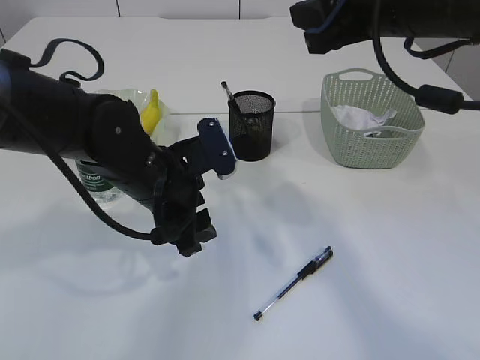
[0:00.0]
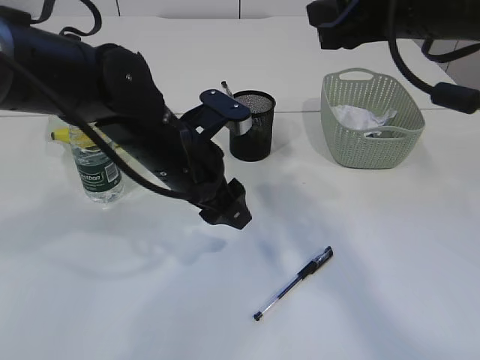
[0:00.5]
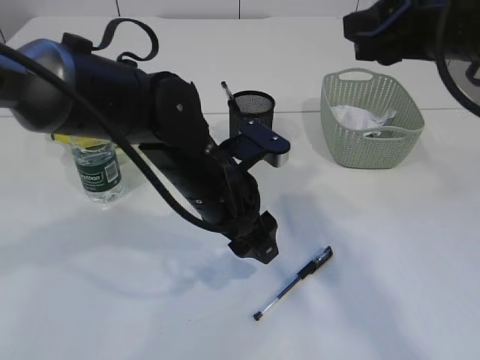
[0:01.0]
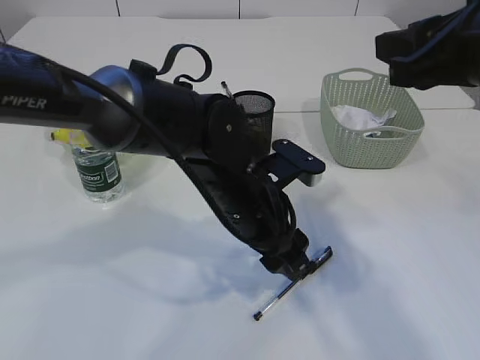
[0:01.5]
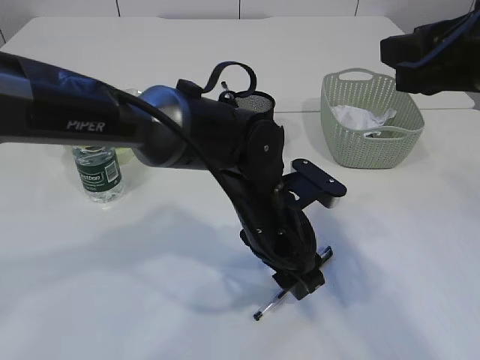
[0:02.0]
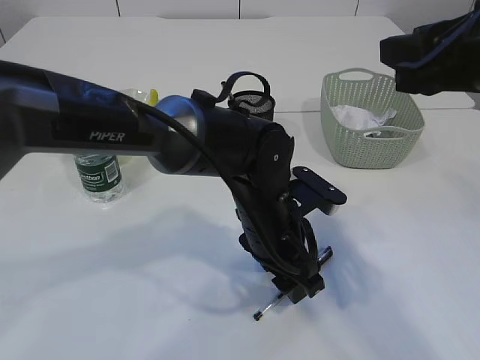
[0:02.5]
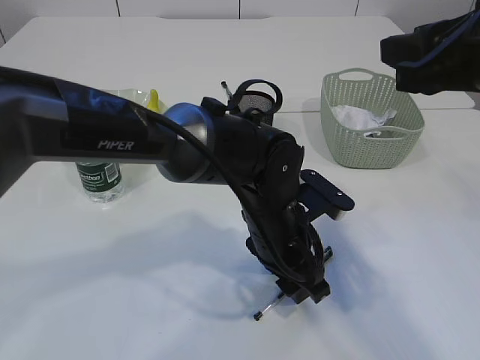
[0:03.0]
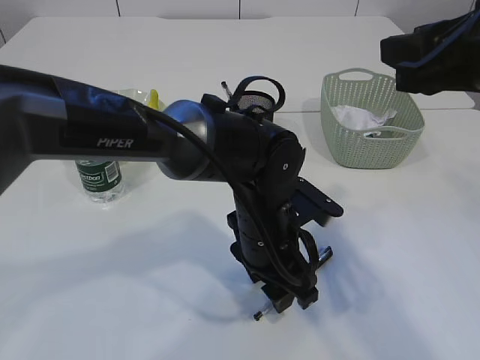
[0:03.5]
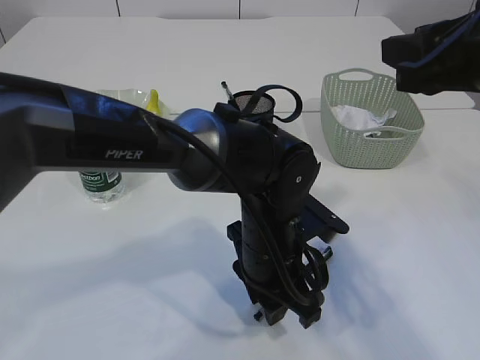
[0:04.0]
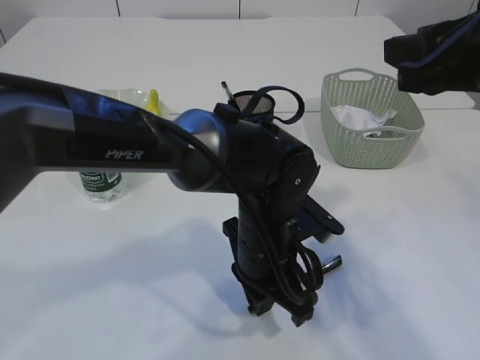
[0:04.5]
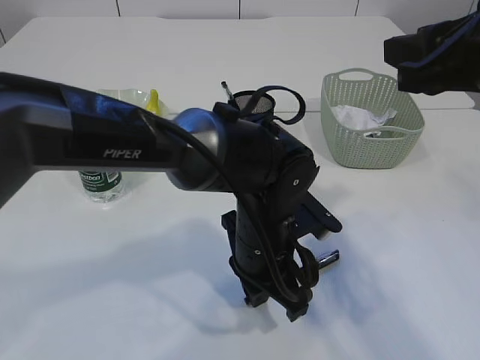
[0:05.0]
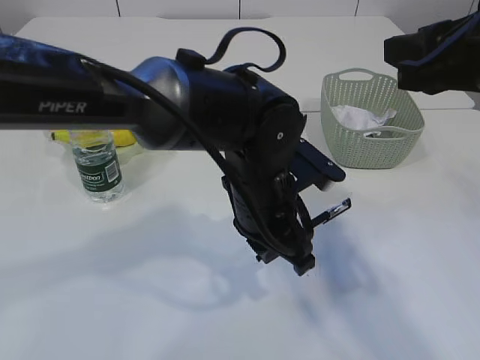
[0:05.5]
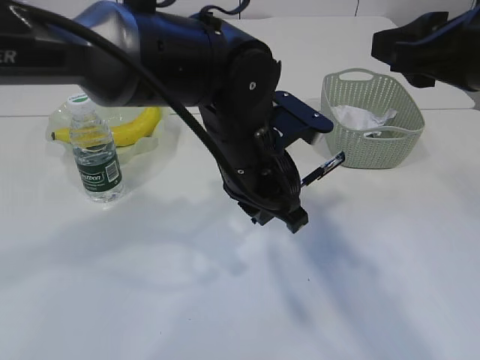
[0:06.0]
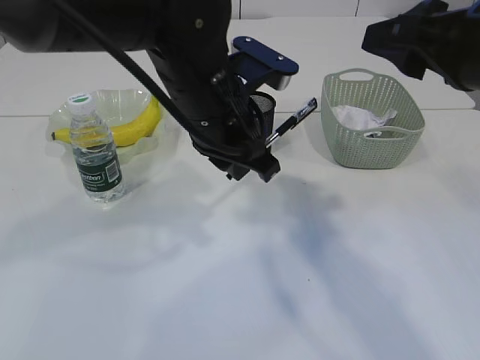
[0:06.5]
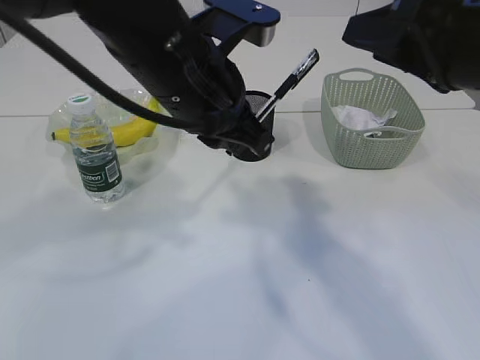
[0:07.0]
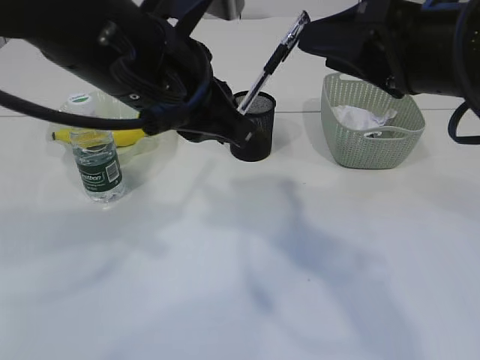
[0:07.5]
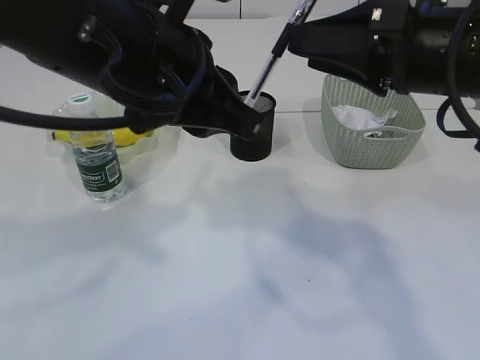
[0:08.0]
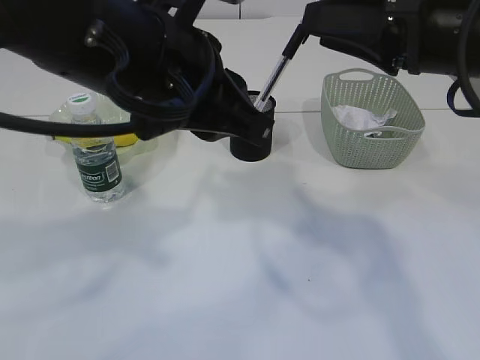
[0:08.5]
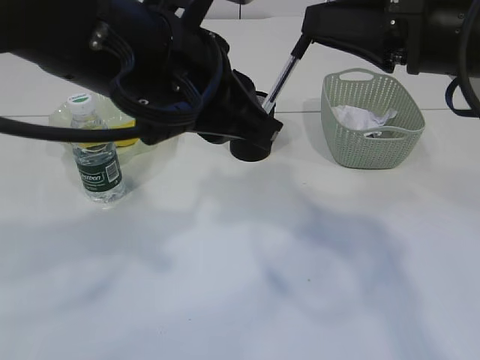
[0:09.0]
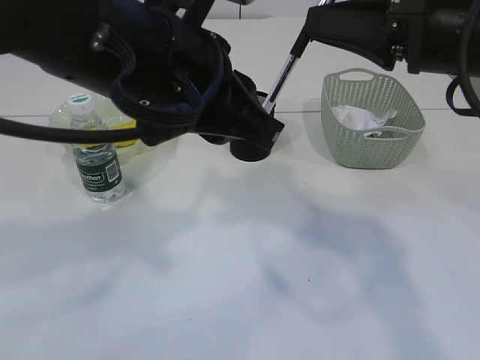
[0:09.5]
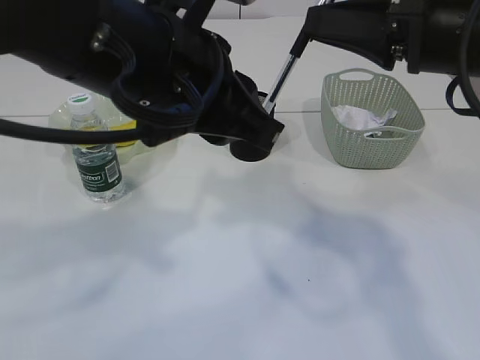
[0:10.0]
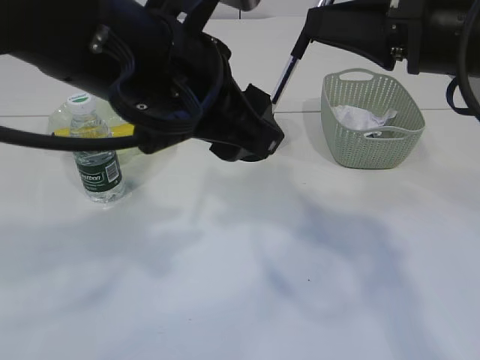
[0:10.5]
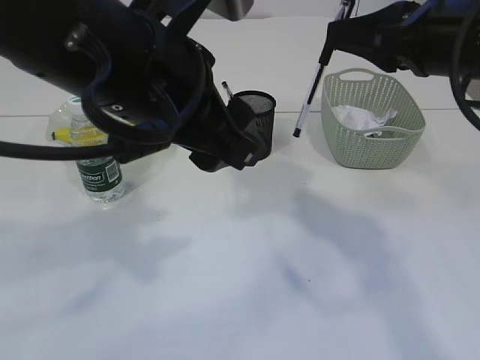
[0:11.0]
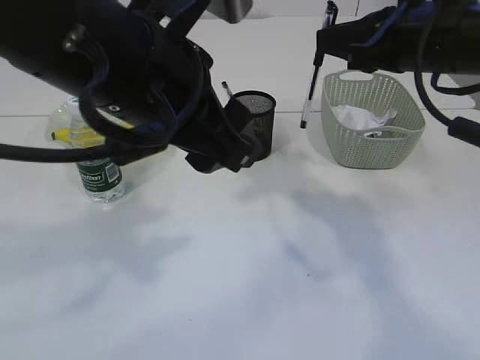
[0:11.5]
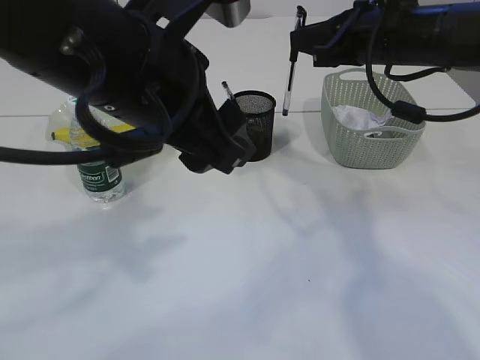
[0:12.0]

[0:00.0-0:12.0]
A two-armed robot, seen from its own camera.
Step, 0:00.0 to 0:05.5: Pick up the pen with left arm.
Step, 0:06.0 to 0:10.5: transfer the pen to the right arm.
0:00.0 to 0:02.0: The left gripper heads to the right, covering roughly 10 cm. The right gripper shifts some 10 cm backward.
0:02.0 to 0:04.0: The left gripper closes.
0:04.0 to 0:06.0: The left gripper travels upward by roughly 10 cm, and closes its fingers.
0:06.0 to 0:08.0: The left gripper moves upward, to the left and backward, approximately 15 cm.
0:08.0 to 0:10.0: The right gripper closes up.
0:10.0 to 0:12.0: The right gripper goes approximately 10 cm forward. Meanwhile the left gripper opens up.

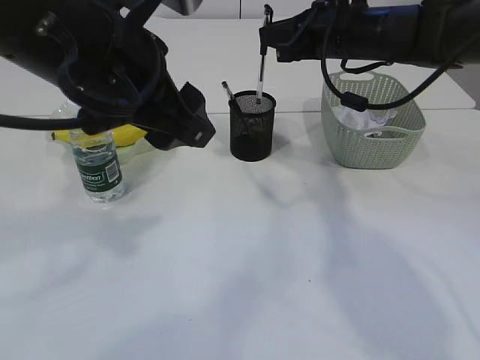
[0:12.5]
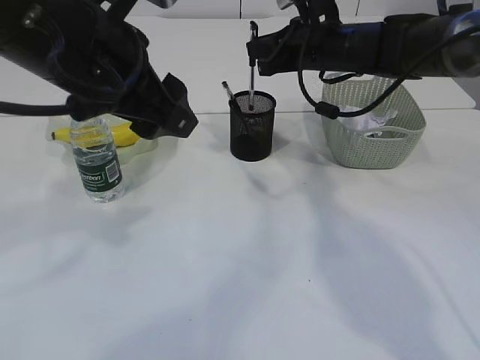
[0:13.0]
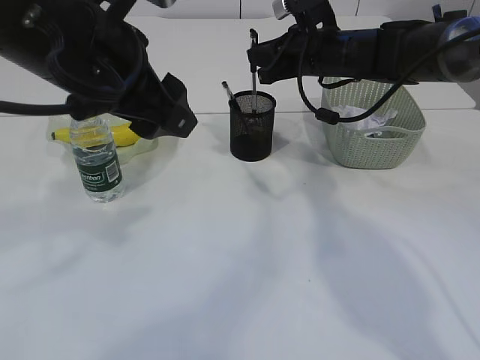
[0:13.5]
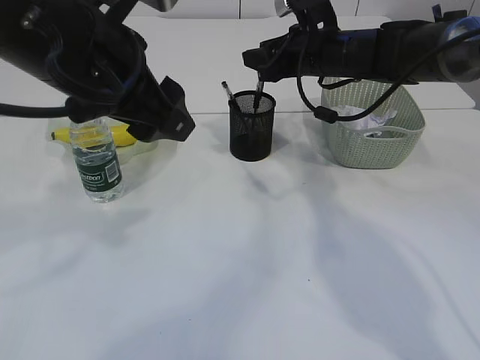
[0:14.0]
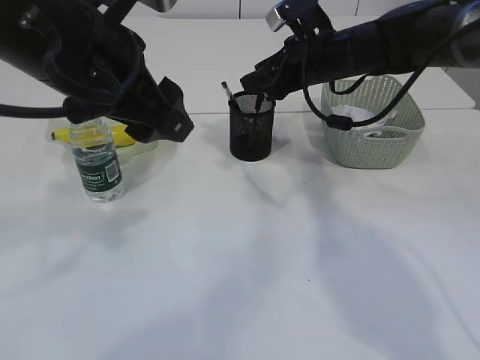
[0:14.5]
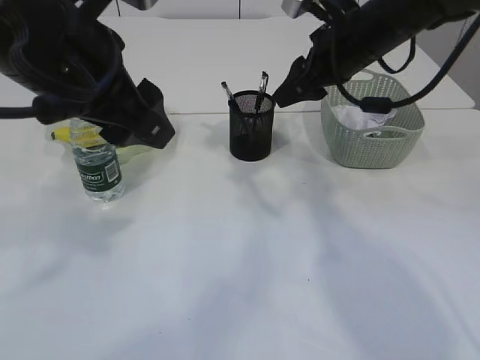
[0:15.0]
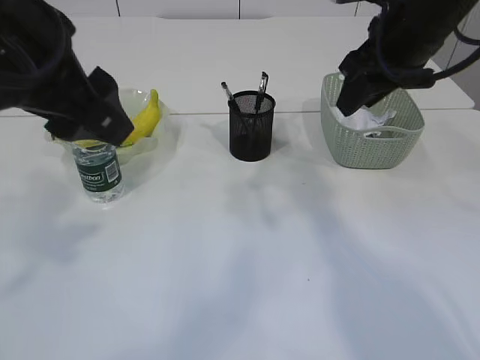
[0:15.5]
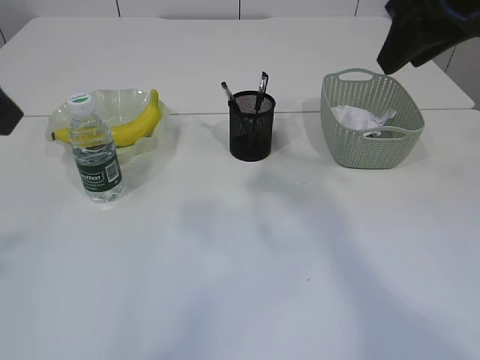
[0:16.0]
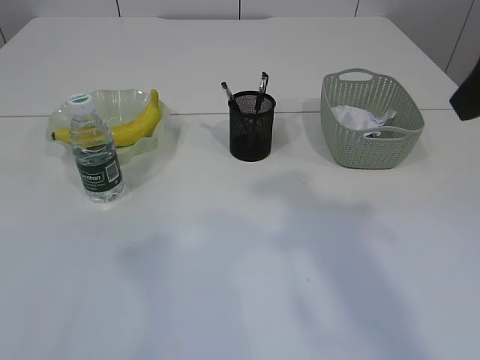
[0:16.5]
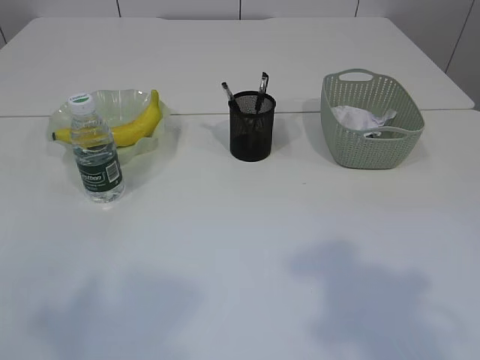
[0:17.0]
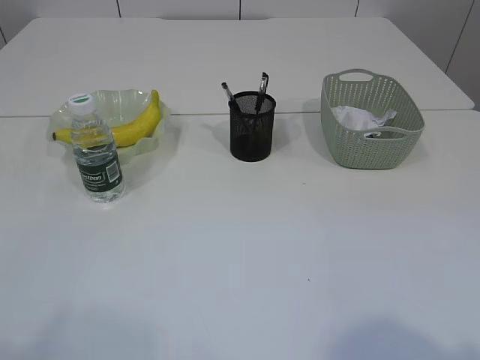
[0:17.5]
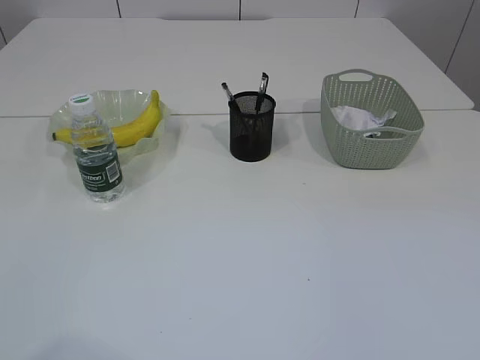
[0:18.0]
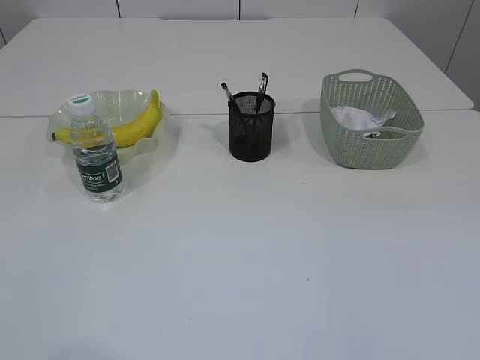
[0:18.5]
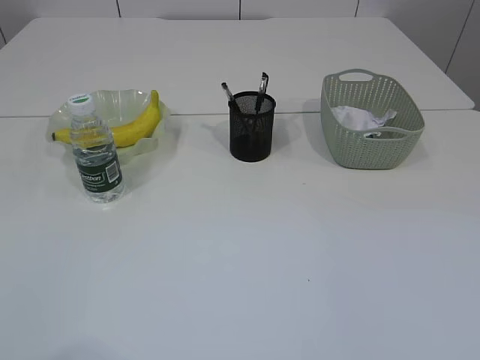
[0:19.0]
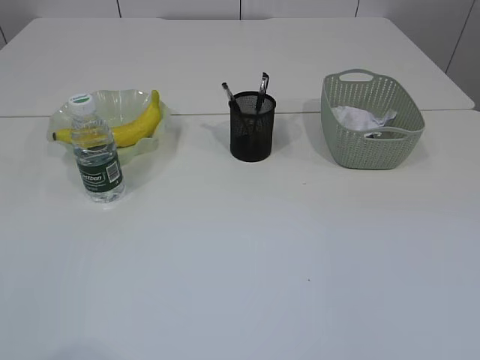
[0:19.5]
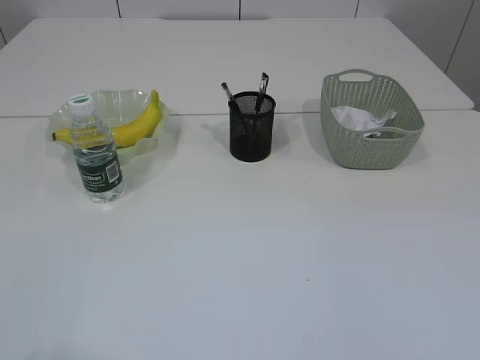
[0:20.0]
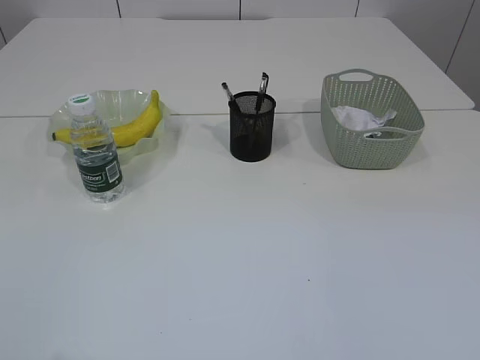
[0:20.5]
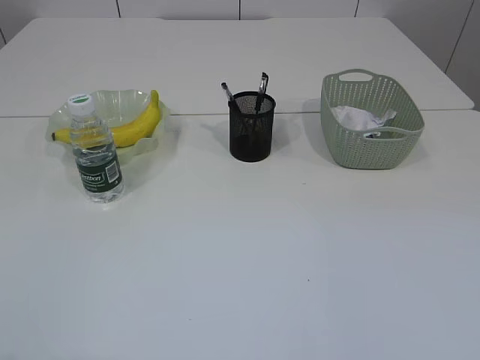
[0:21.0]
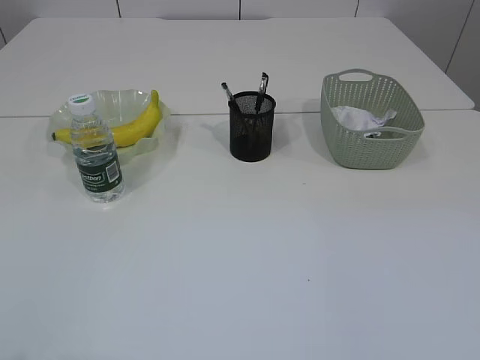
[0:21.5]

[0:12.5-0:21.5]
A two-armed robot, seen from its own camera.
Step, 0:12.5 to 0:15.0: Place the pen into the pen holder.
0:12.5 to 0:14.5: The right gripper opens.
0:14.5 to 0:17.0: The right gripper travels backward and upward by roughly 40 cm. Meanwhile the left gripper is displaced backward and to the left by some 30 cm.
0:17.0 to 0:19.5: The left gripper is displaced downward by about 10 cm.

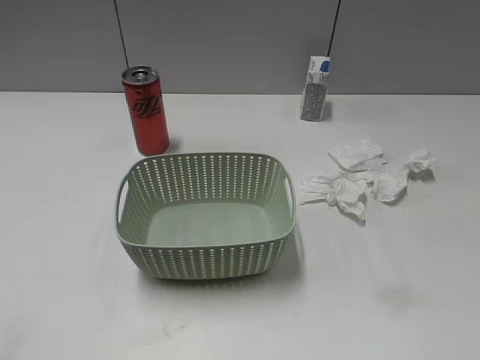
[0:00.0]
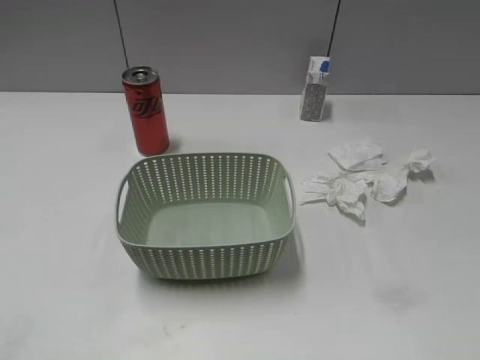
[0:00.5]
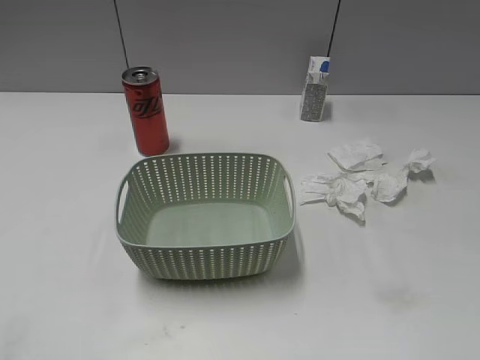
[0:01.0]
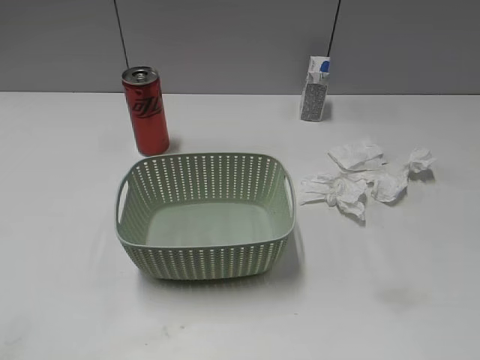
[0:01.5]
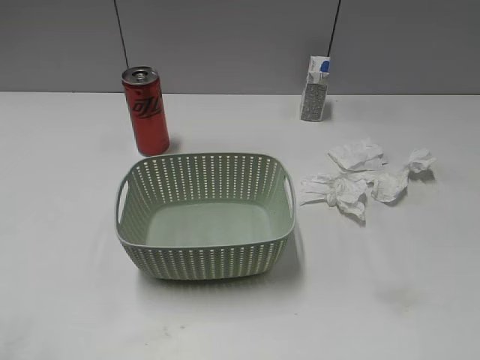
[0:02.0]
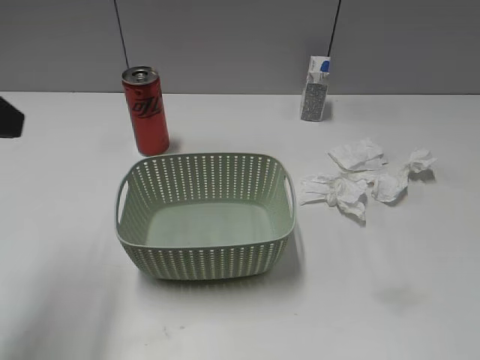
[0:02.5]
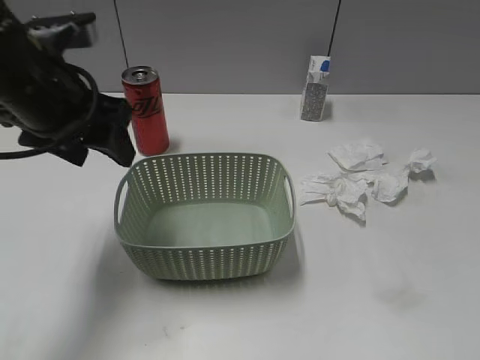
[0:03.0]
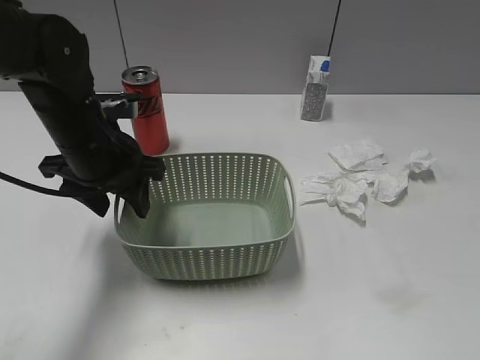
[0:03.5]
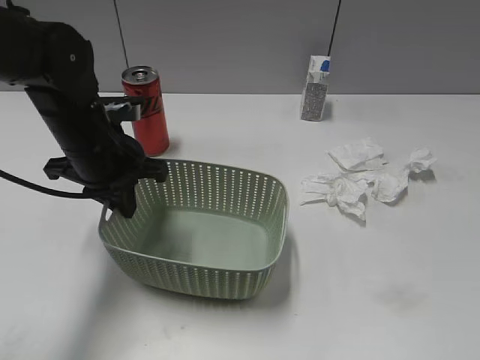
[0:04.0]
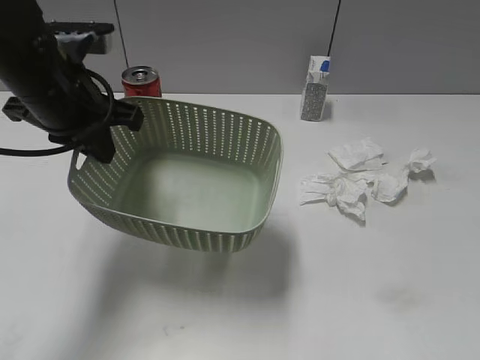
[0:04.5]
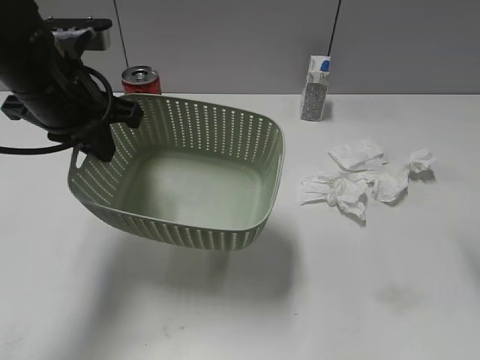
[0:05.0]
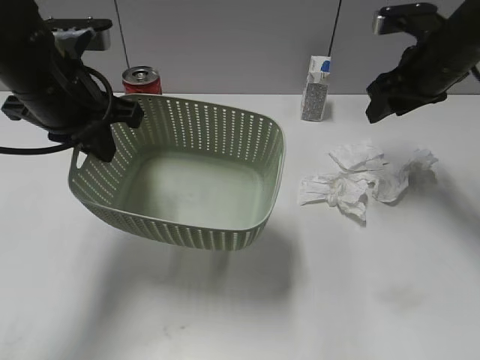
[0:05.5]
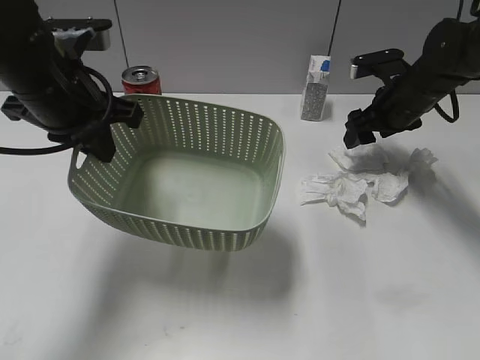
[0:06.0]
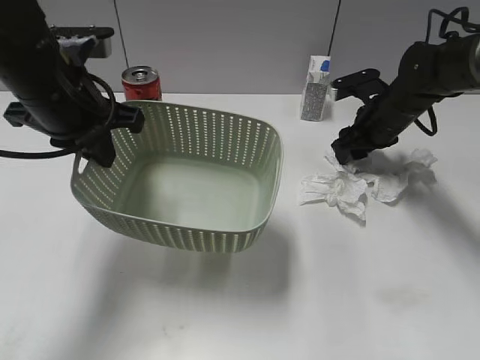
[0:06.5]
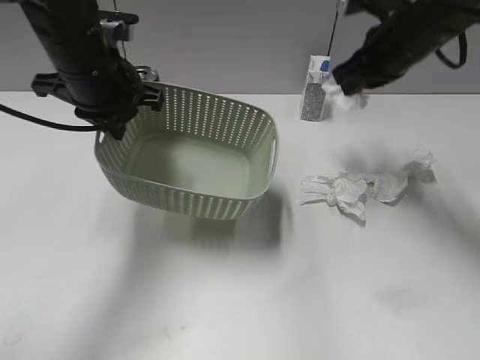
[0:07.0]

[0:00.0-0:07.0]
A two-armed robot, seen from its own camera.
Step, 0:01.5 to 0:04.0: Grasp the basket with left gripper.
Step, 0:05.0 to 0:06.5: Grasp the waste paper with right gripper.
0:02.0 to 0:03.5: The left gripper goes about 30 cm forward, to the right and downward.
0:03.5 to 0:05.0: The left gripper goes some 10 cm upward, and closes its fingers; the right gripper goes roughly 25 cm forward.
0:05.0 to 0:07.0: The left gripper is displaced forward by some 5 cm. Meanwhile the right gripper heads forward, to the left and downward, covering approximately 20 cm, and closes up.
